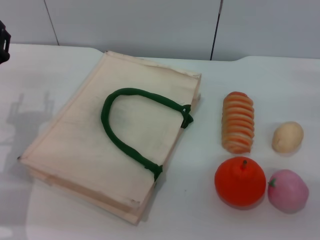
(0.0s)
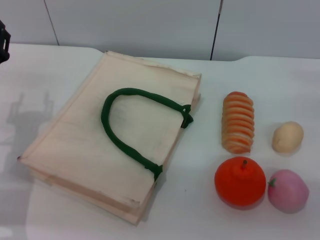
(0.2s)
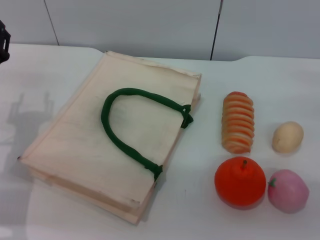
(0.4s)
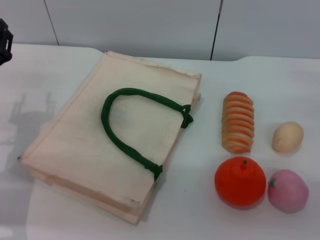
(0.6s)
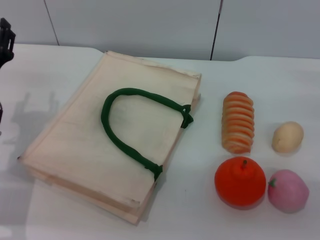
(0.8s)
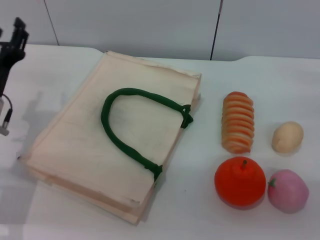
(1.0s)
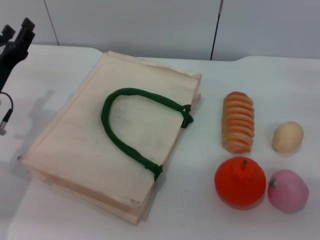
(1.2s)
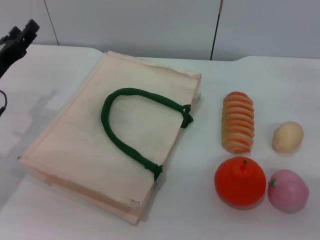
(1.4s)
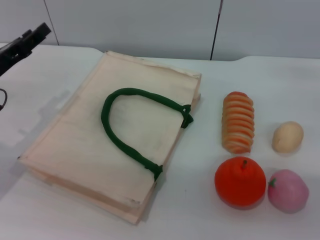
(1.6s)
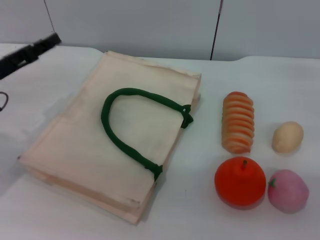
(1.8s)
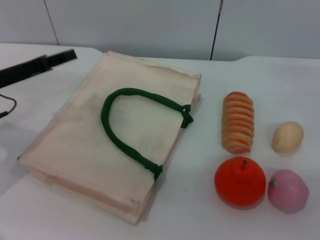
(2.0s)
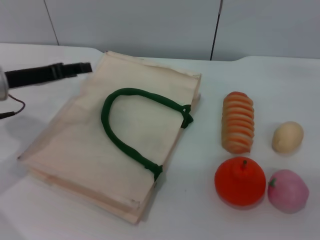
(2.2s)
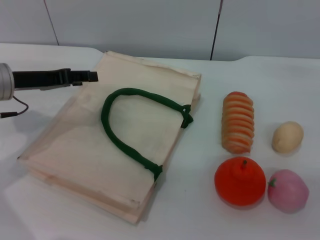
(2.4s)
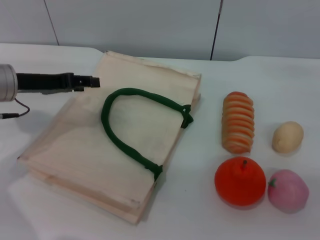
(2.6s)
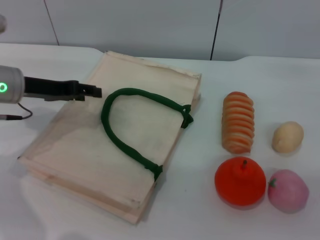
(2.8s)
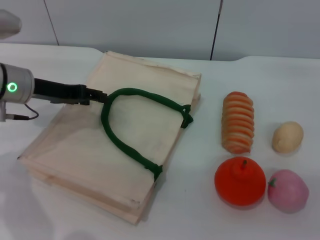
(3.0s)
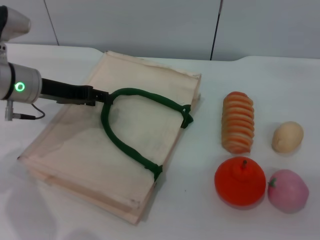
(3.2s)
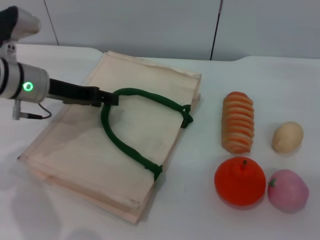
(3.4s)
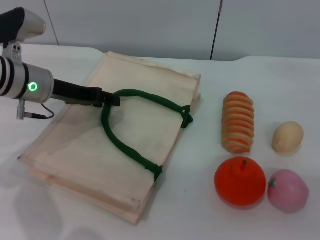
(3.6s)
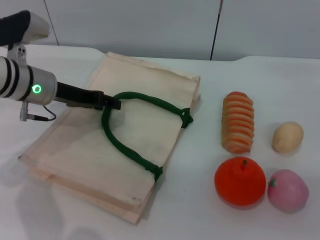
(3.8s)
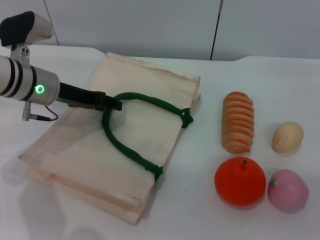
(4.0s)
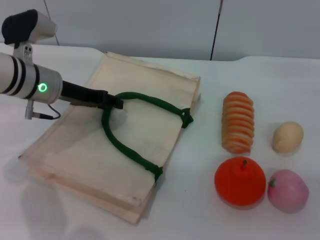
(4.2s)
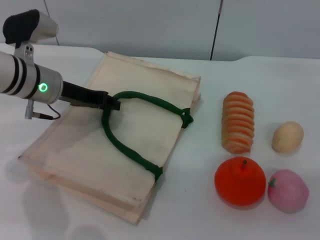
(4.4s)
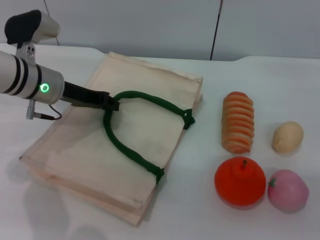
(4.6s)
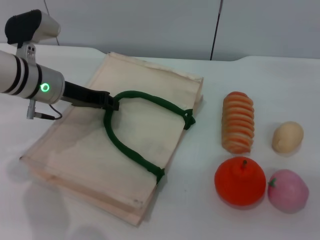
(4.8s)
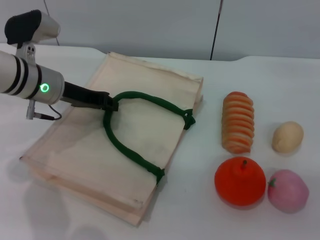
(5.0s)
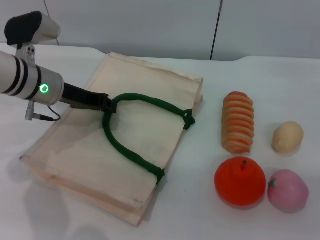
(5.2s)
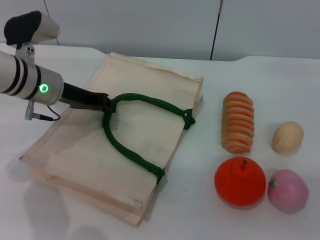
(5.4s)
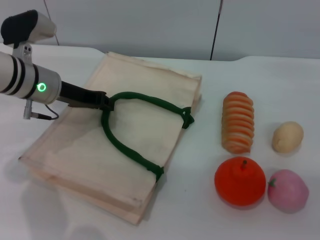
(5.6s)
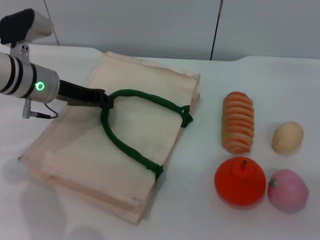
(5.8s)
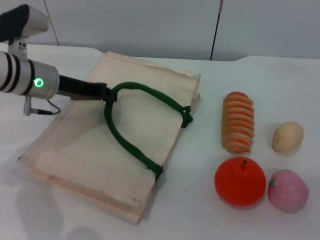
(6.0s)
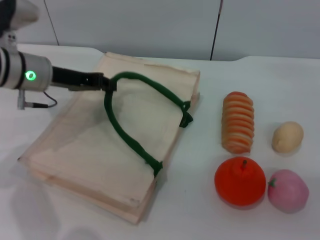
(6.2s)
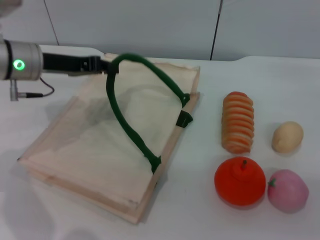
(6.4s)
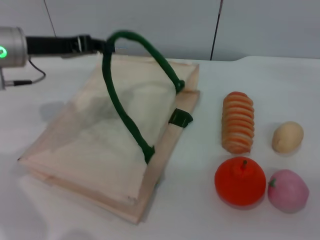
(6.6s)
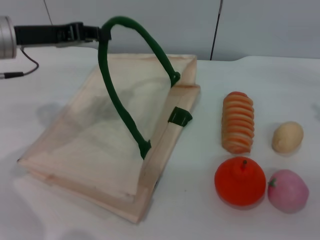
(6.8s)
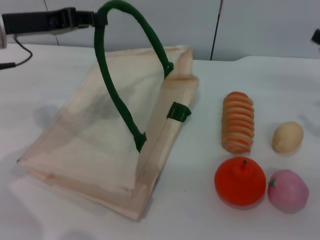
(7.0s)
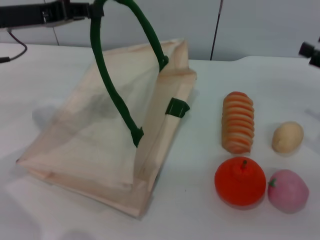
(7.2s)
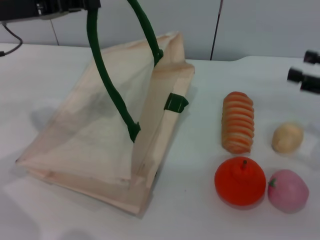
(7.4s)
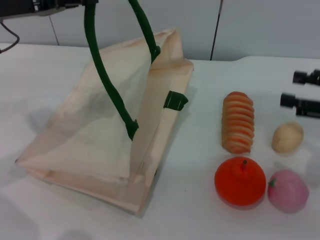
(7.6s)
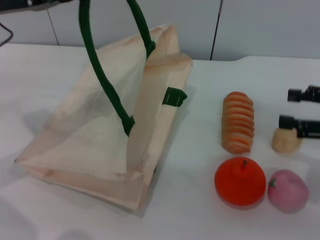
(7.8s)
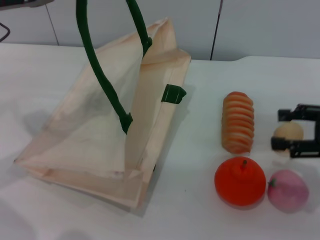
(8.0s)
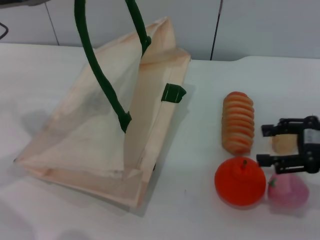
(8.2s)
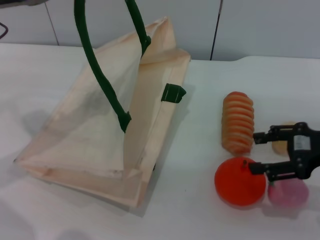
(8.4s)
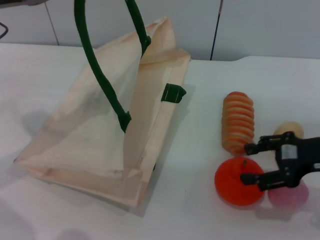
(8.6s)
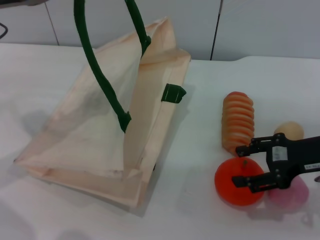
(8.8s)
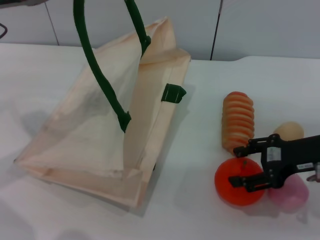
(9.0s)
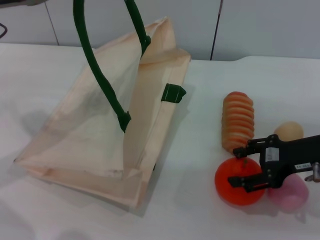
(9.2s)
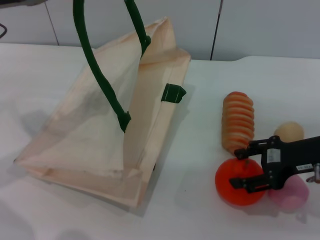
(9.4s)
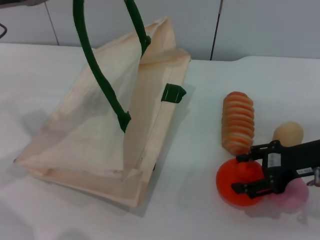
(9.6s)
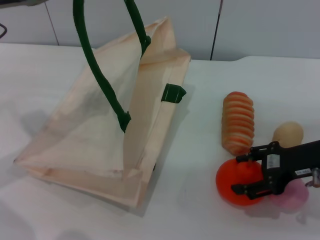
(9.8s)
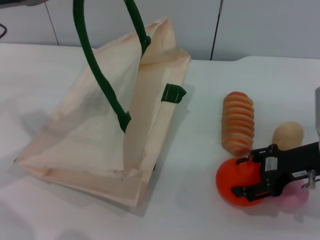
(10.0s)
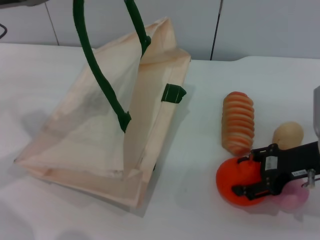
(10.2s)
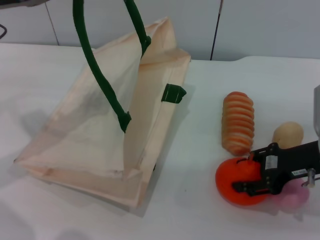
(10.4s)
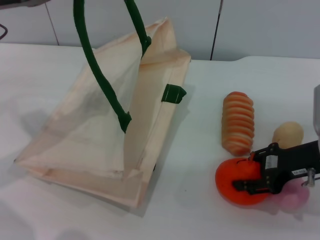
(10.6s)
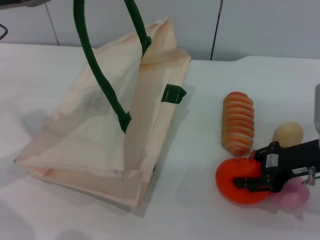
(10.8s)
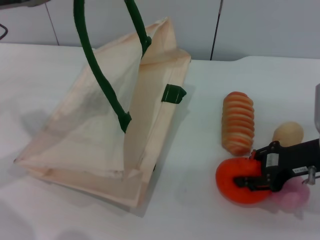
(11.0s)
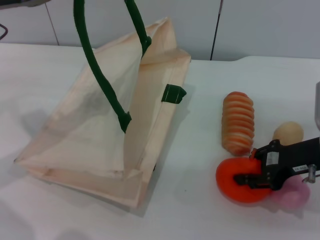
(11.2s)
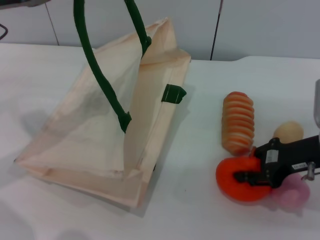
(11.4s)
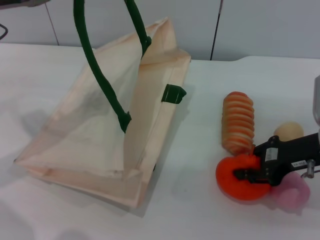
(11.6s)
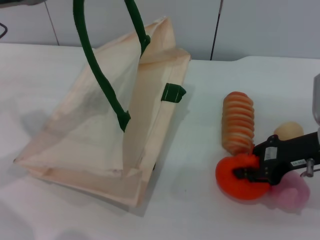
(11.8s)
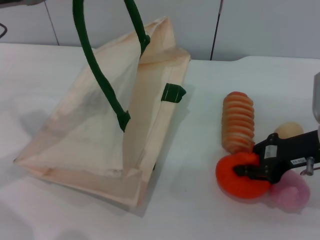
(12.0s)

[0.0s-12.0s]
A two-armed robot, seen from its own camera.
Task of the whole recording: pick up the orange from the table and place it in the white handbag.
Step, 0.0s to 7.2s: Lift the woven bag with the left gripper to open it.
0.0s to 1.6s: The left gripper changes place by about 5 cm.
1.6s to 3.0s: The left gripper goes roughly 5 cm forward.
3.0s to 4.4s: The grippers stay close to where they were, moving slightly.
4.4s to 6.0s: The left gripper closes up.
6.0s to 7.6s: The right gripper ends up roughly 5 cm from where it was. Meanwhile the left gripper shifts some 10 cm upward and to the left.
7.6s to 9.0s: The right gripper is displaced to the left by approximately 10 cm.
9.0s to 10.4s: The grippers make only small movements.
10.4s to 12.0s: The right gripper closes up.

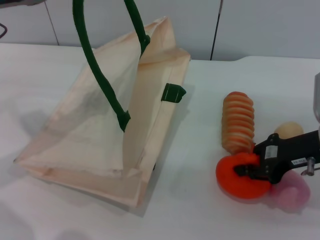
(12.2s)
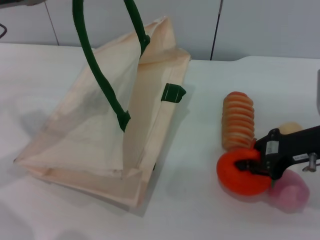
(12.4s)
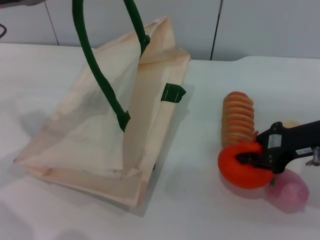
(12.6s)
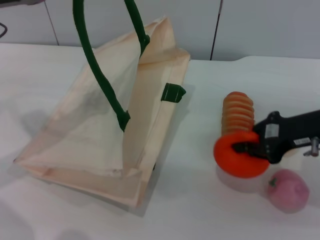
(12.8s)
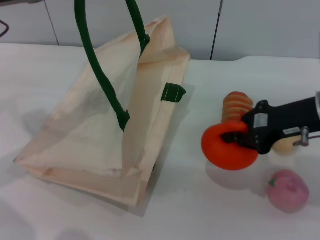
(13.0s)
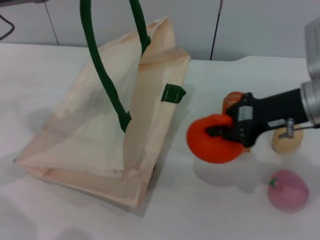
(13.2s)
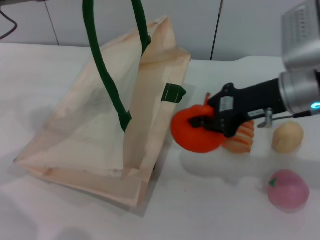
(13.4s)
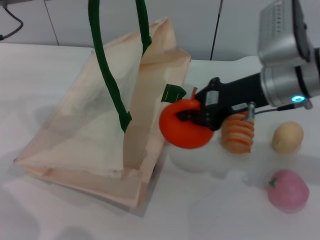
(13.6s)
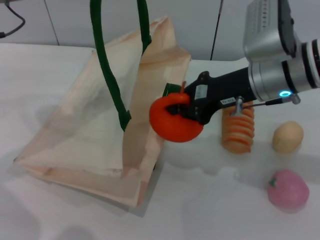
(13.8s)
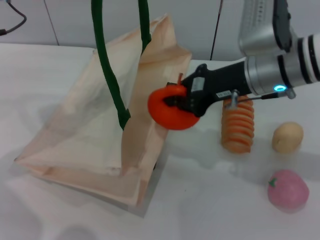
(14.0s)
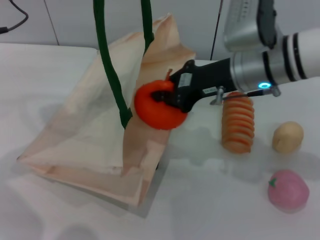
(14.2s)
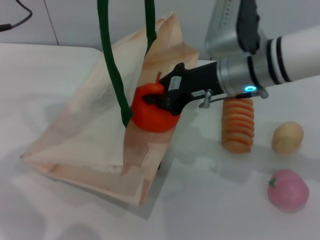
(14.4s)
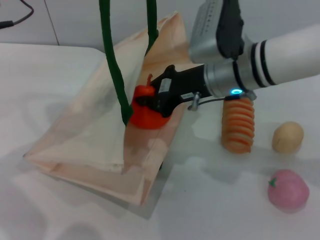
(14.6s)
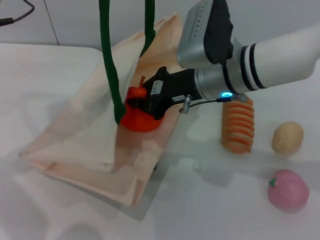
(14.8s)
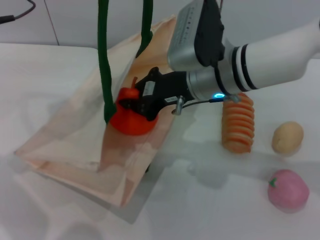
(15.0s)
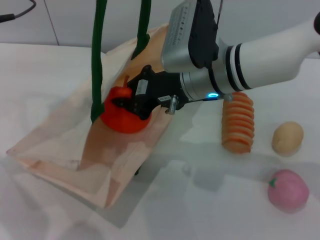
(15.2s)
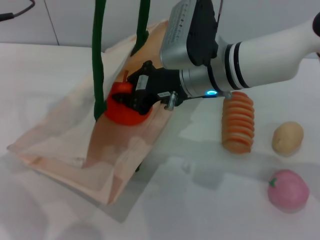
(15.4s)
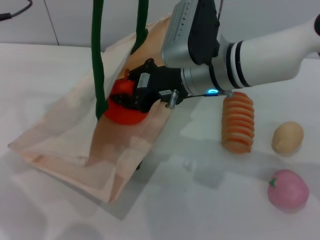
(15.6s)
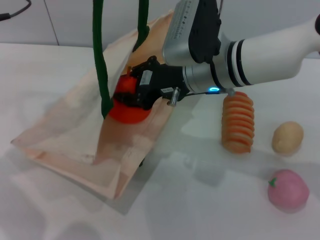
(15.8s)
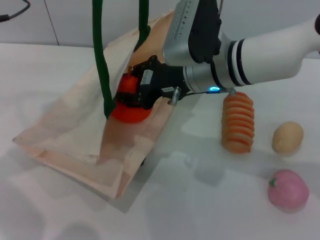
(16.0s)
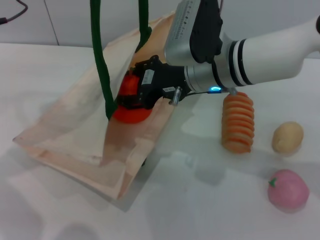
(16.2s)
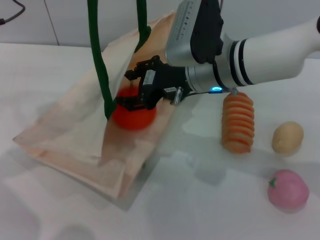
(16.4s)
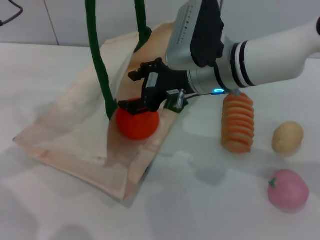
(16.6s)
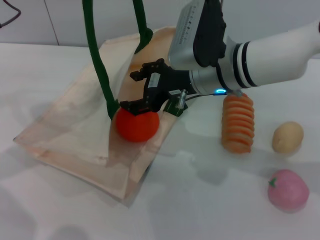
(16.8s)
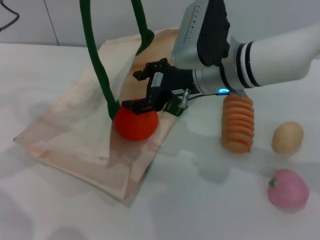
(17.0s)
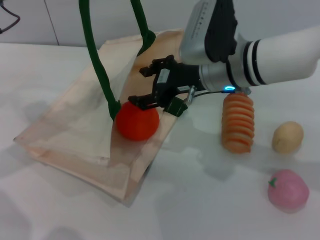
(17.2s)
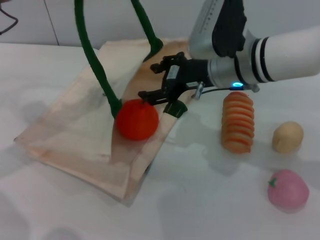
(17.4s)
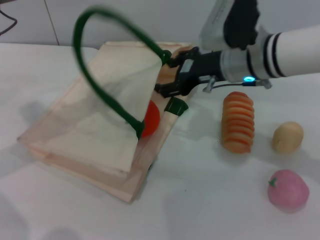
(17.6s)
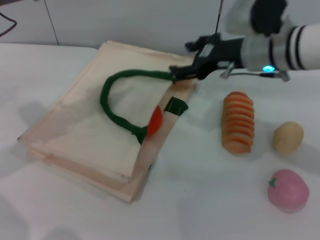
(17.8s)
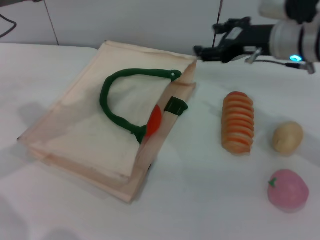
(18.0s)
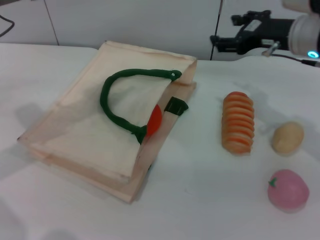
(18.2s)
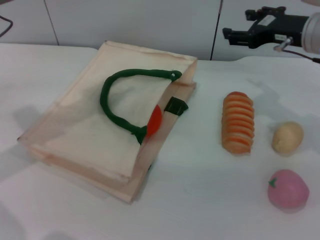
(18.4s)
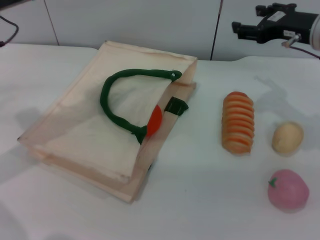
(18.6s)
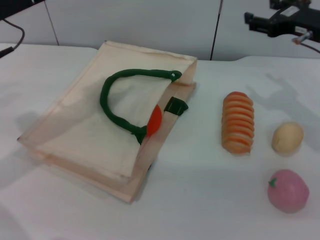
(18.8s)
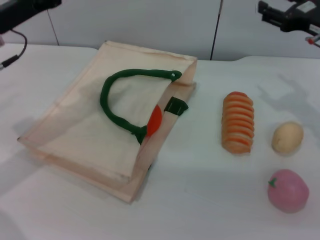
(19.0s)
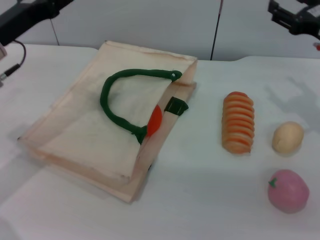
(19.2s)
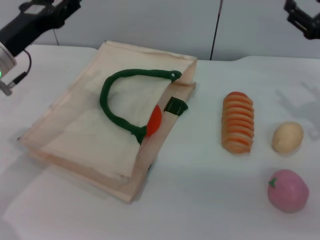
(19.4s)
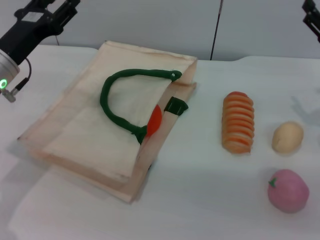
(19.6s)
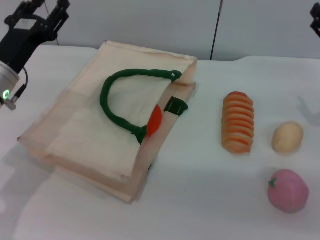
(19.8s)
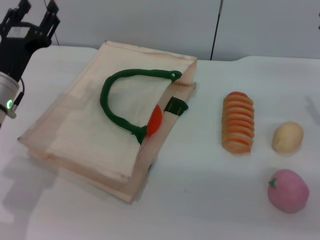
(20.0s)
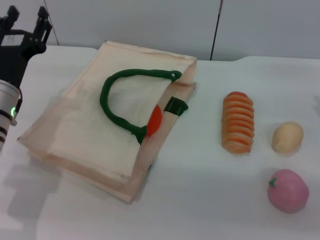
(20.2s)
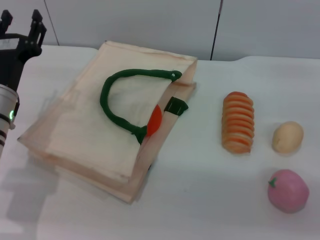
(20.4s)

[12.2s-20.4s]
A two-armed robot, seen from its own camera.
Task of the whole recording: pick up the orange from the table and place it in the white handbag.
Step, 13.0s to 16.8s: Place the orange into the woven bag with the right gripper.
12.2s to 13.8s: The right gripper heads to the left and upward, covering about 10 cm.
13.8s to 15.4s: The right gripper travels to the left by some 10 cm.
15.4s to 17.2s: The right gripper opens its fingers.
17.2s to 18.8s: The left gripper opens its fingers. The right gripper goes some 15 cm to the right.
18.8s to 20.4s: The left gripper heads downward and backward, covering approximately 15 cm, while the right gripper heads to the right, downward and backward, covering approximately 15 cm.
